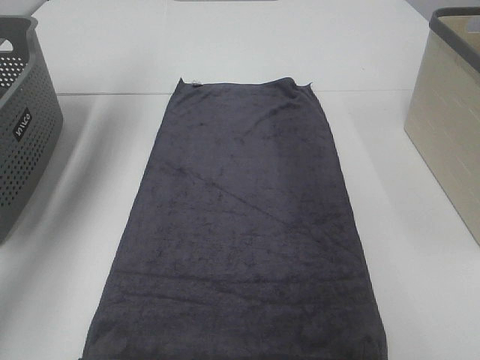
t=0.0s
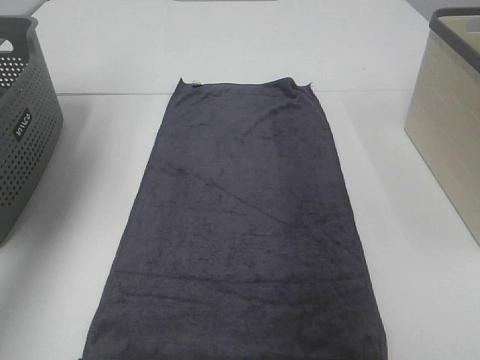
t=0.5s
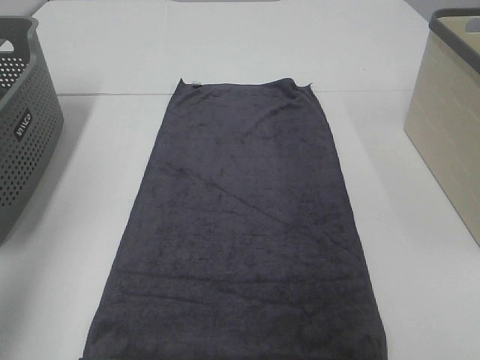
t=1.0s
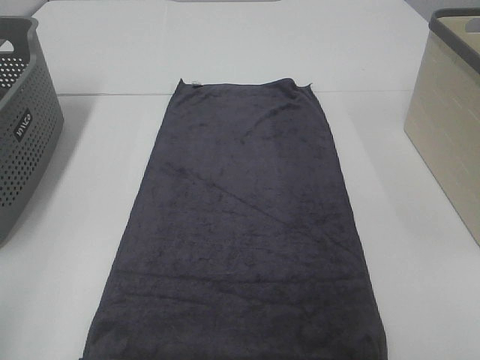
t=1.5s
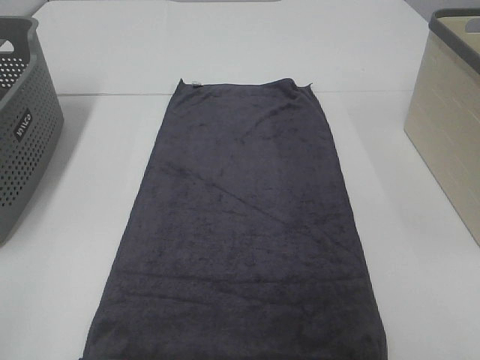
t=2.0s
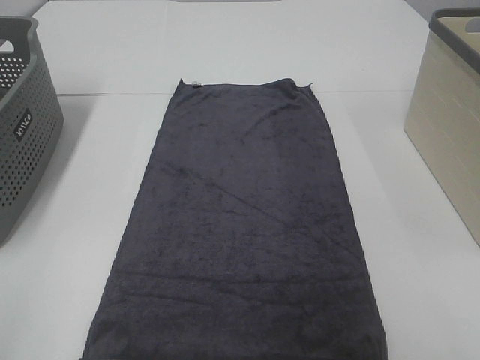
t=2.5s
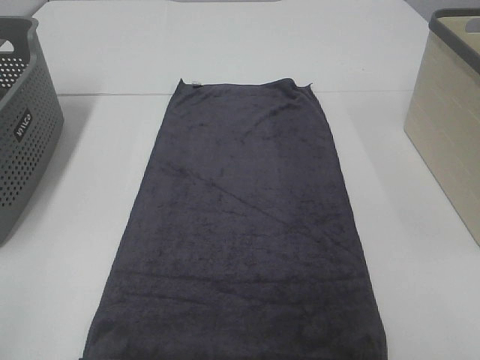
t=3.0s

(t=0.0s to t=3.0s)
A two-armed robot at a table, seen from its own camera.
Task of the whole recording: Remove the towel and place it.
t=0.0s - t=1.5s: The left gripper travels backward by approximately 40 cm.

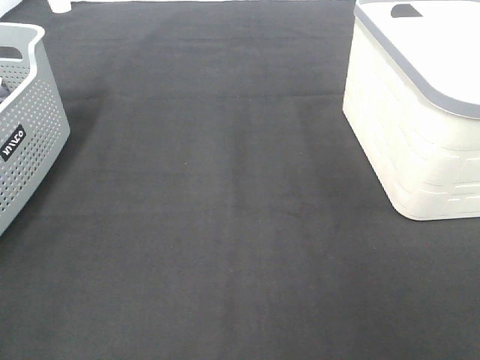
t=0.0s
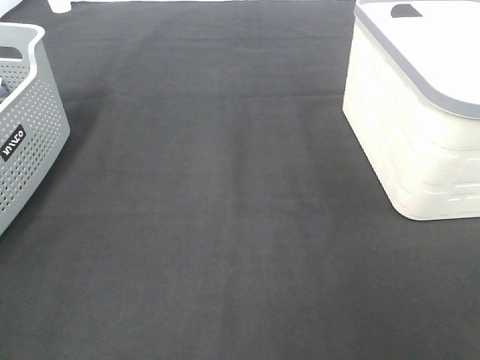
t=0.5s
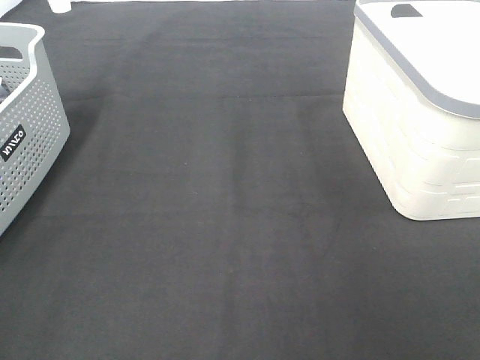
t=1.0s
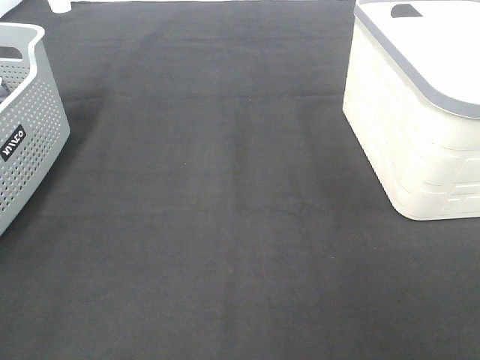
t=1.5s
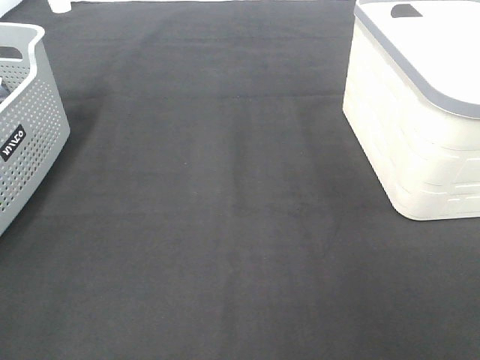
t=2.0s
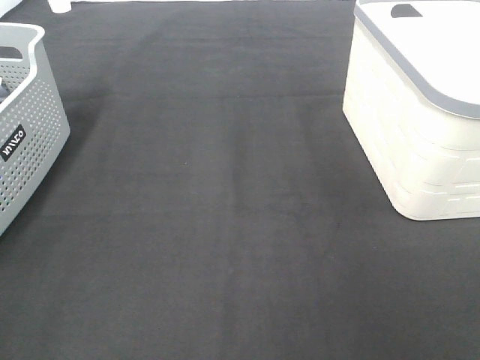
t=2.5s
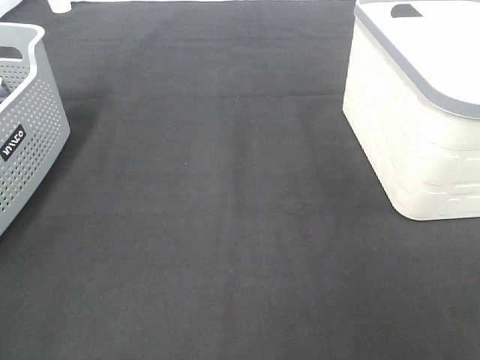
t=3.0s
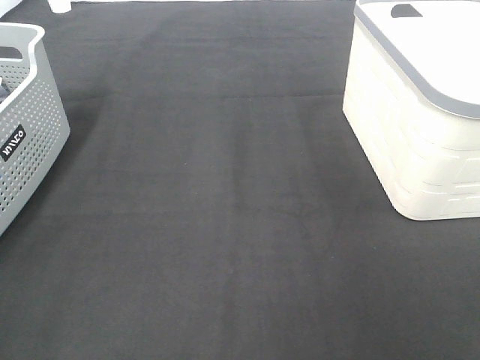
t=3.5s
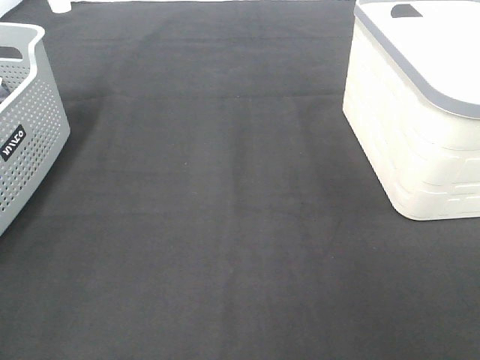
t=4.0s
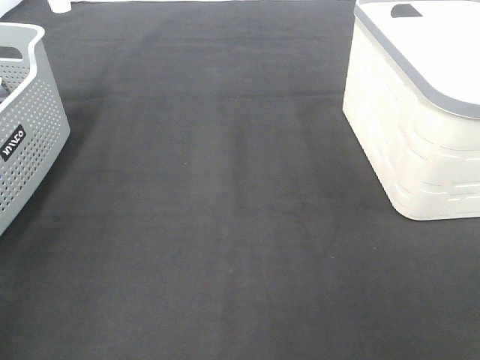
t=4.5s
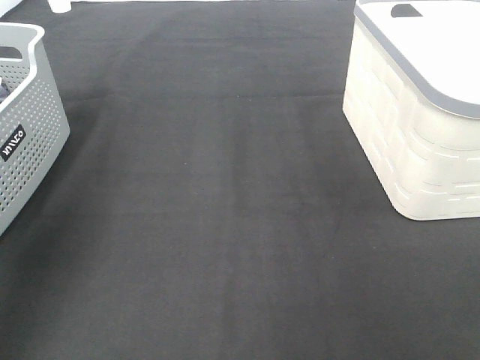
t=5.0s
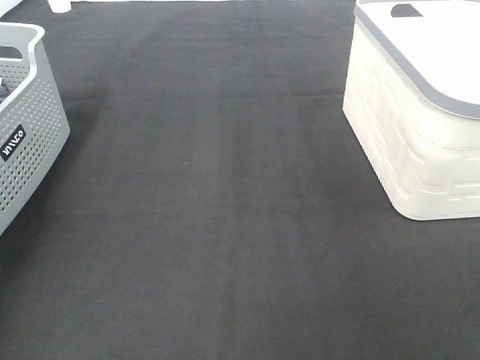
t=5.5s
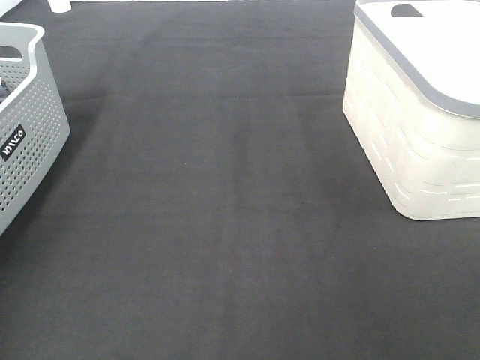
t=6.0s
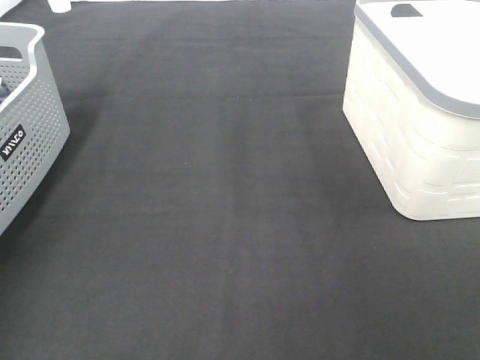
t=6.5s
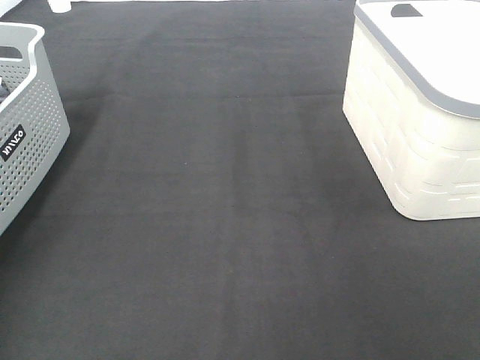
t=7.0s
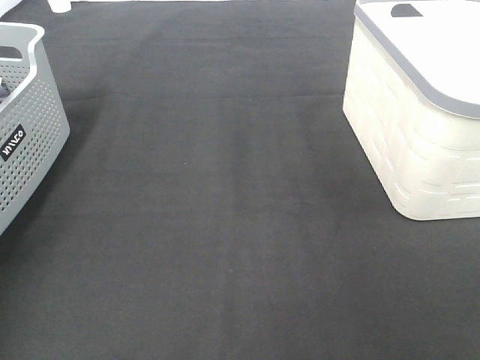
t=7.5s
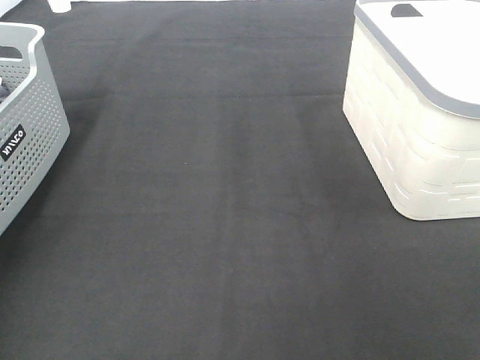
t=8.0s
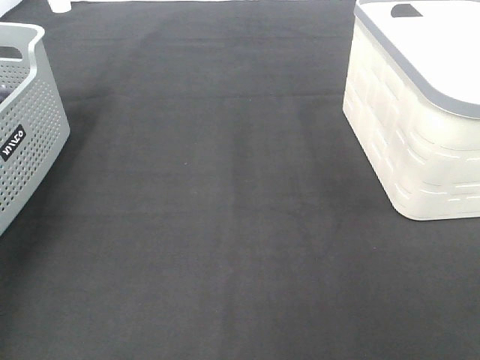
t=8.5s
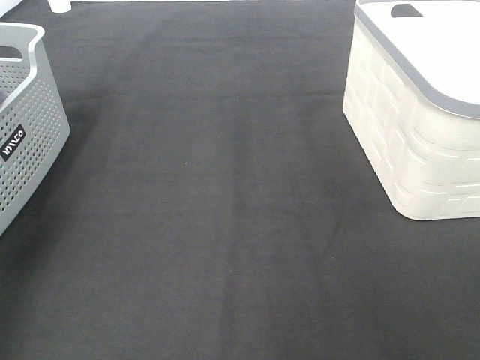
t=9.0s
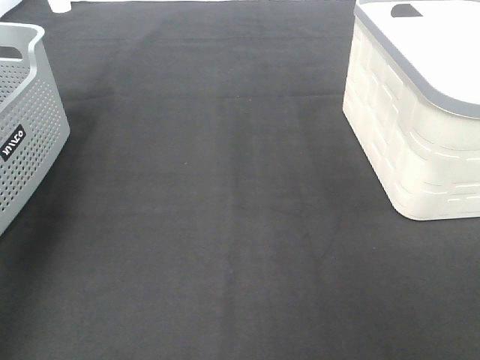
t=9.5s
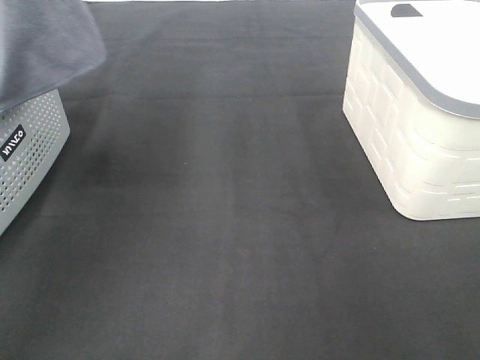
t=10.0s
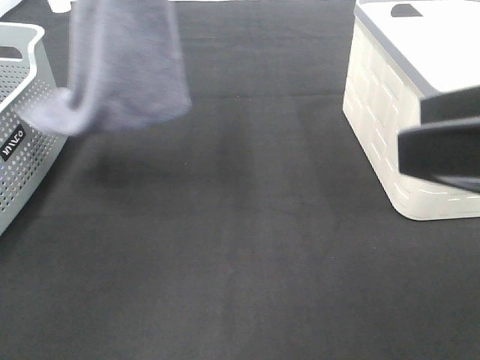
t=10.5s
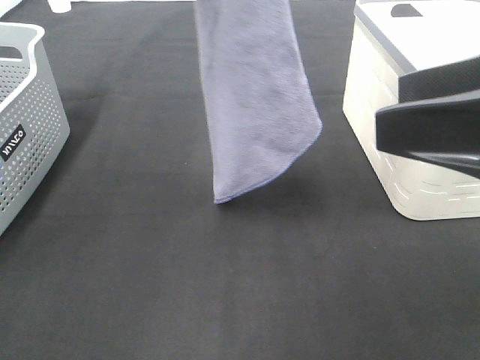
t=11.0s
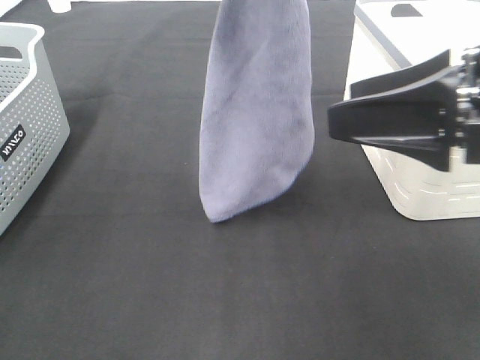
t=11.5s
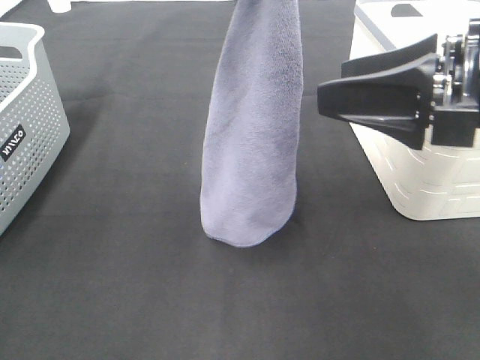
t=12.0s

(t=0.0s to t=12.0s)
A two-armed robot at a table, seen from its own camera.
Task of the whole recording: Remove the towel and place it.
t=0.0s - t=2.0s: Neither gripper changes place.
t=8.0s - t=10.0s: The left gripper is displaced upward and to the right by approximately 25 cm.
t=10.0s - t=12.0s: The right gripper heads forward, covering some 15 cm. Meanwhile the left gripper heads to the right and downward, covering about 20 cm.

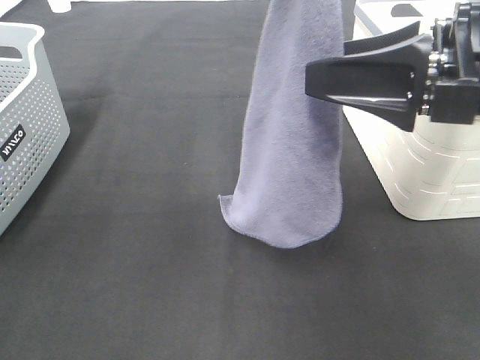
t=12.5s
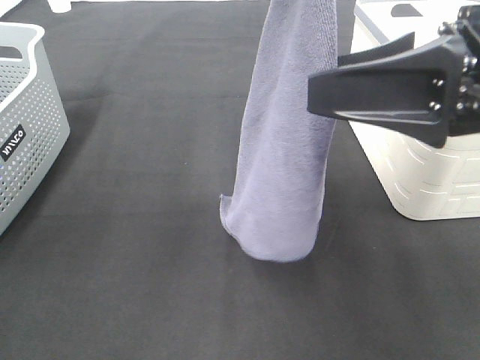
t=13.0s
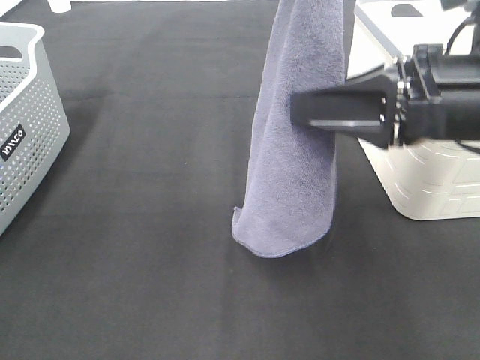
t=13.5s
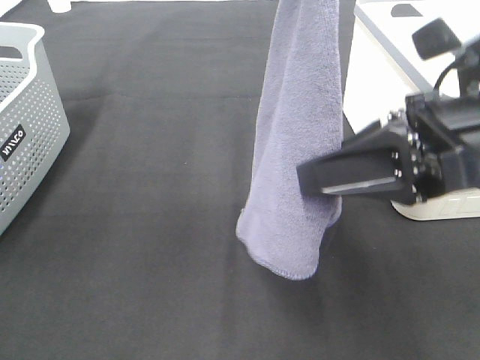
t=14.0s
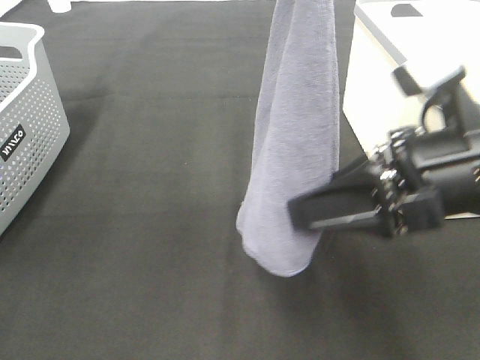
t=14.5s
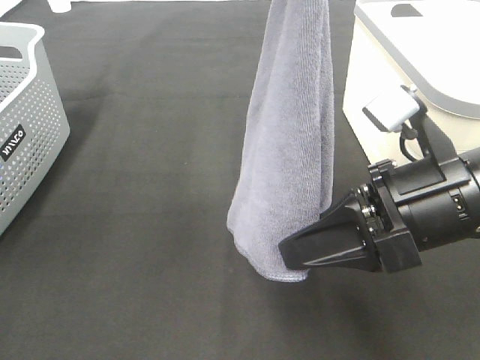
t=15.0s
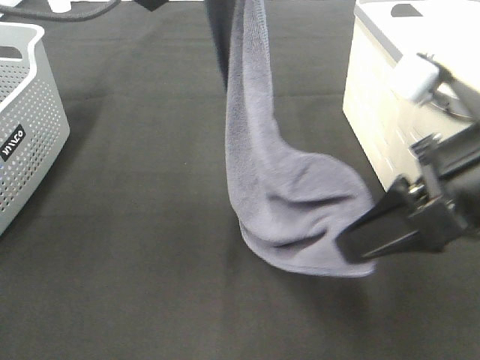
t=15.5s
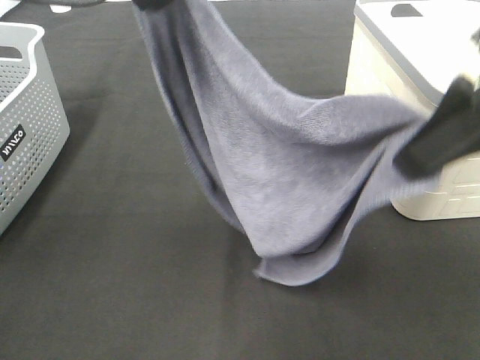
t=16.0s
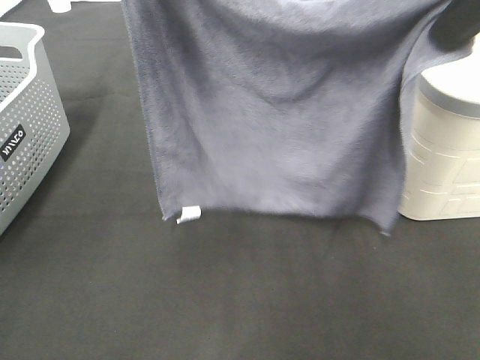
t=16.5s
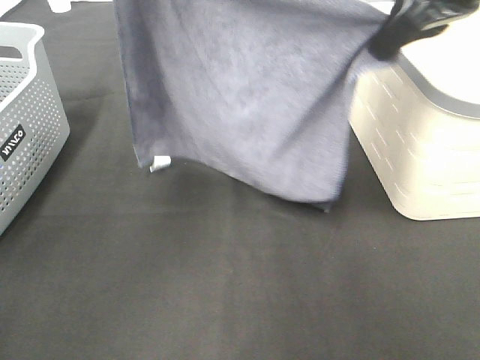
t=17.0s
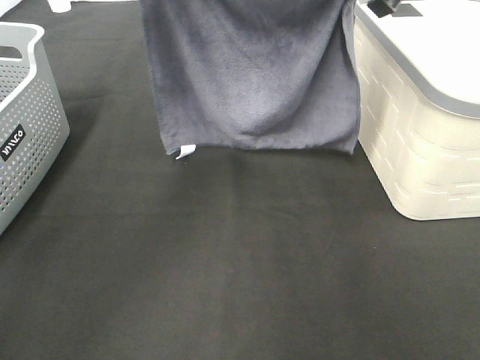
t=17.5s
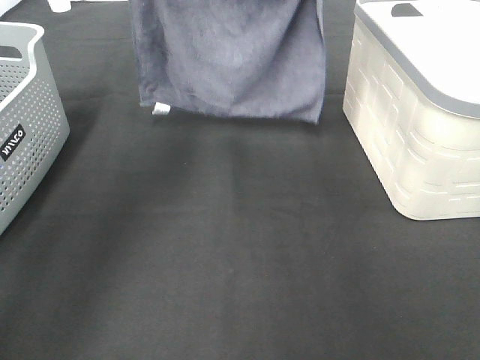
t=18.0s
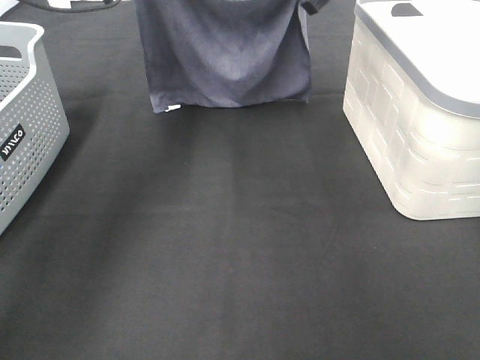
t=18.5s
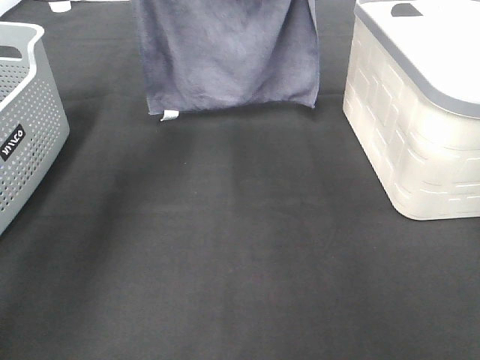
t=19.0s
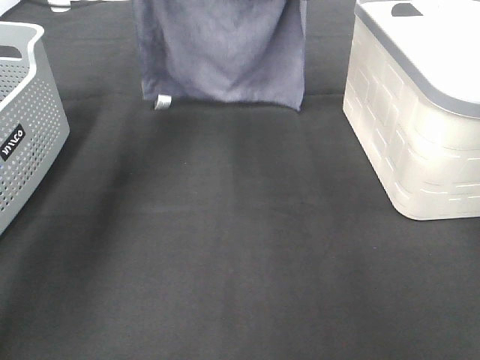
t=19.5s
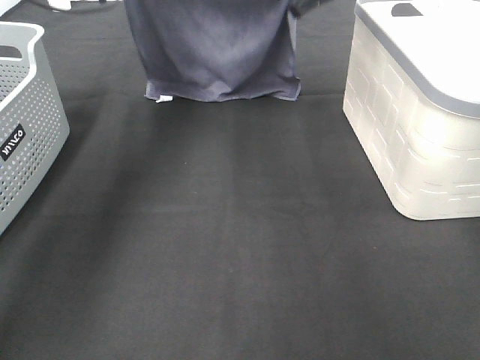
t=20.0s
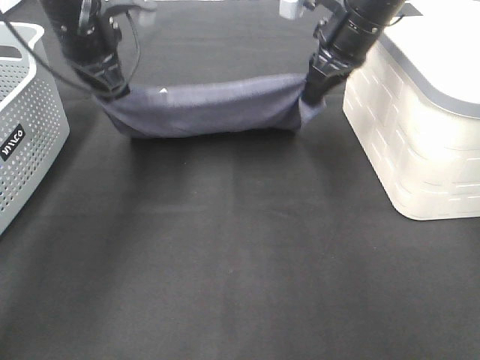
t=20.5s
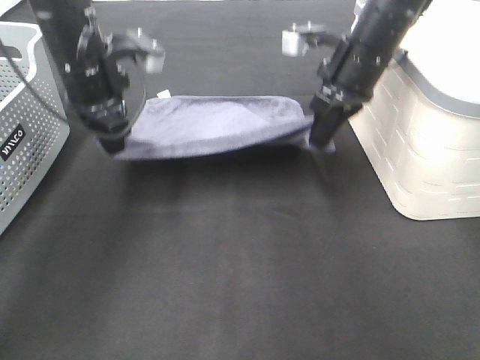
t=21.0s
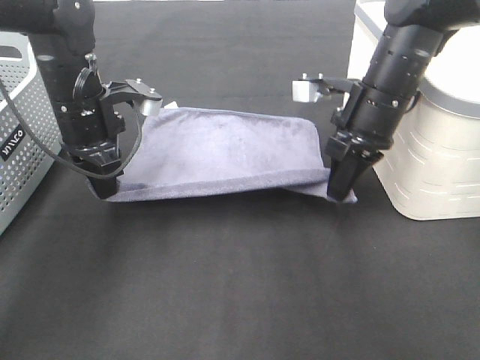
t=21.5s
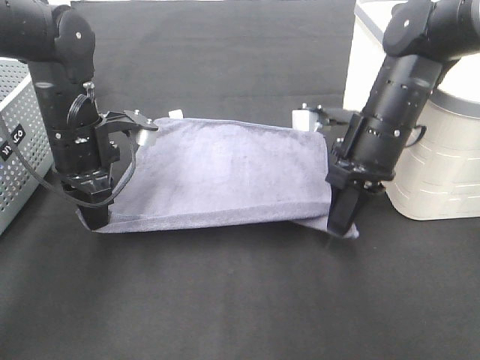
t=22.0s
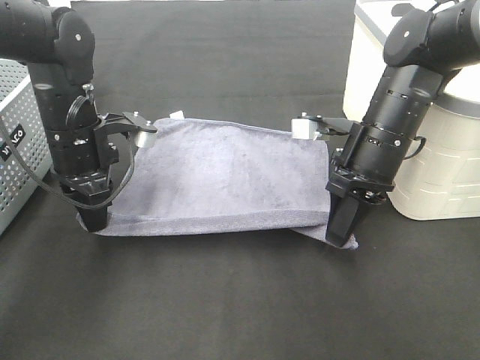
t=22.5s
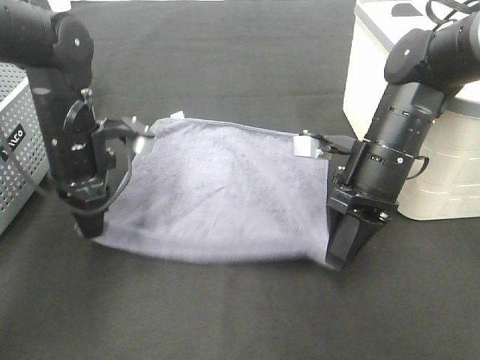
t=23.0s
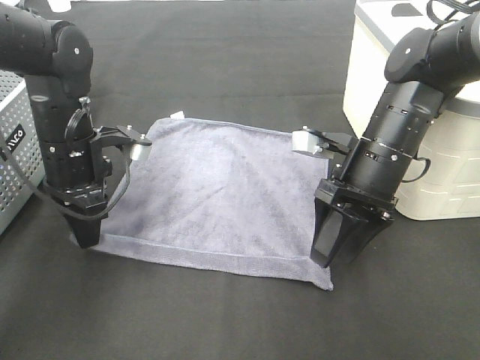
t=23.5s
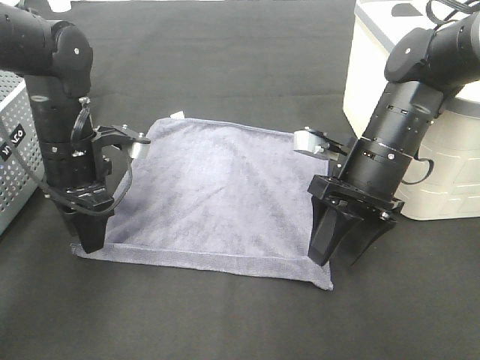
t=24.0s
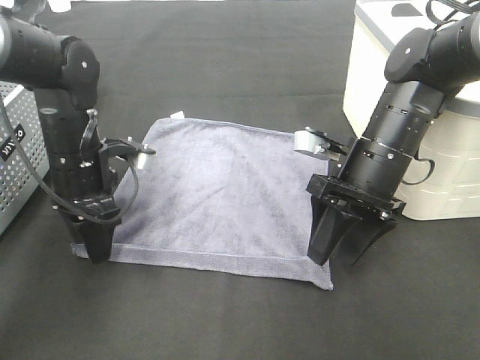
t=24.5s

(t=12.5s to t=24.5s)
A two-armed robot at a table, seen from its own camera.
Task of the whole recording: Remove the towel and place it.
Step, t=14.0s - t=18.5s: Right hand: spread the grey towel flat on the table.
Step, t=14.0s - t=19.0s: Left hand: spread the grey towel flat on the table.
Step, t=19.5s - t=20.5s: Left hand:adjust the gray towel.
Step, t=21.0s - t=22.5s: Right hand:adjust the gray towel.
t=12.5s - t=14.5s: The right gripper travels downward by approximately 5 cm, and closes.
t=14.5s - t=16.5s: The left gripper moves about 5 cm. The right gripper moves upward, roughly 20 cm, and closes up.
t=16.5s - t=18.5s: The left gripper is displaced forward and downward by roughly 20 cm. The right gripper travels forward by approximately 25 cm.
t=18.5s - t=20.5s: Both grippers move downward, about 5 cm.
t=20.5s - t=22.5s: The right gripper moves backward and downward, about 15 cm. Meanwhile the left gripper shifts approximately 15 cm downward and backward.
t=22.5s - t=24.5s: The right gripper opens. Meanwhile the left gripper opens up.
